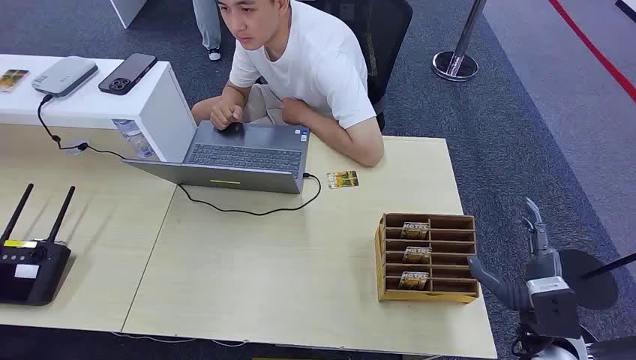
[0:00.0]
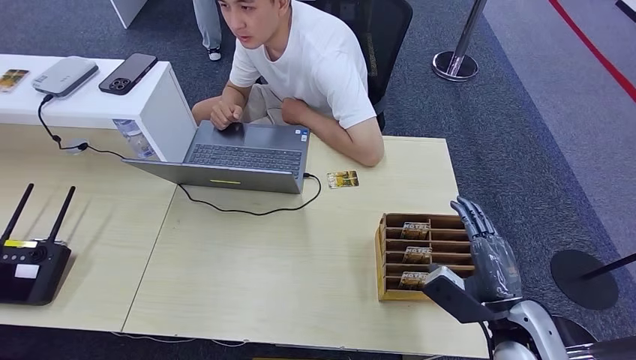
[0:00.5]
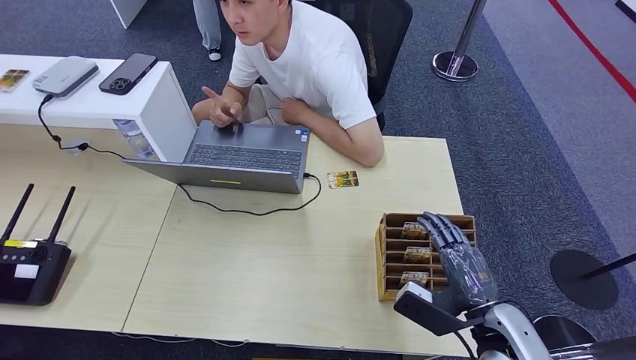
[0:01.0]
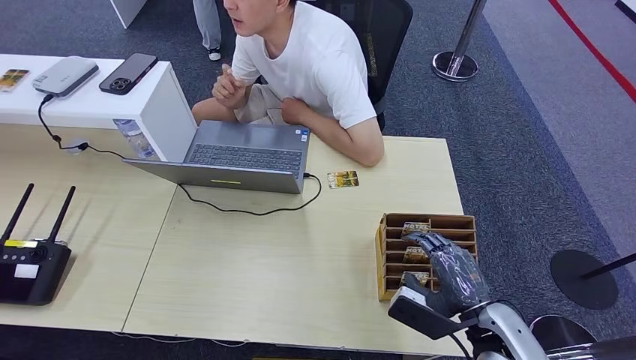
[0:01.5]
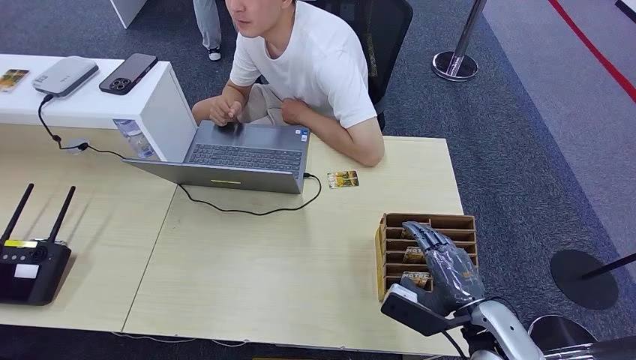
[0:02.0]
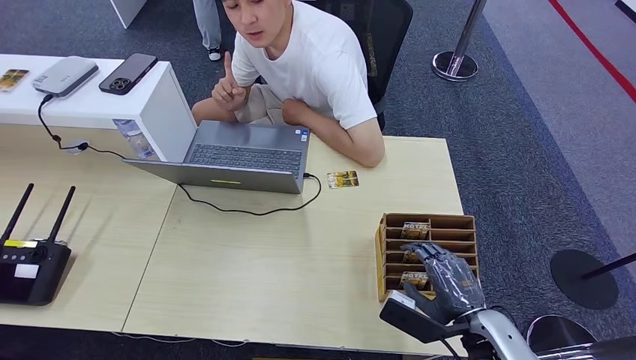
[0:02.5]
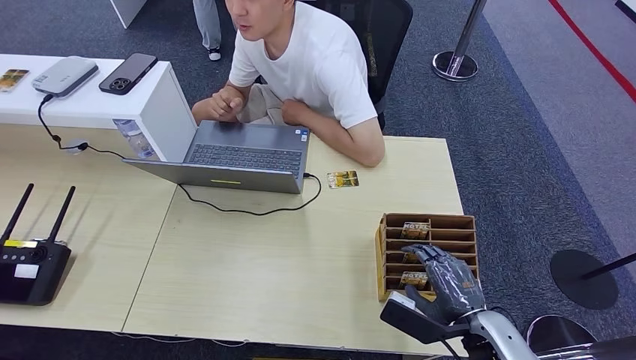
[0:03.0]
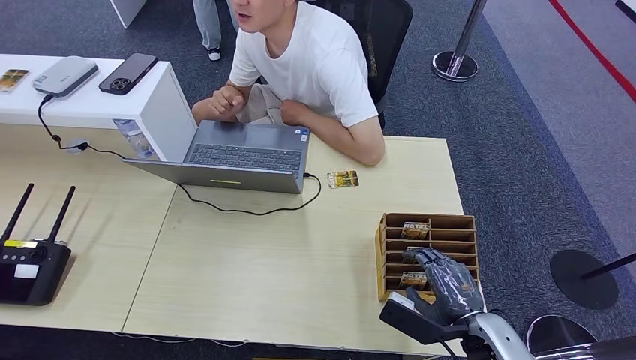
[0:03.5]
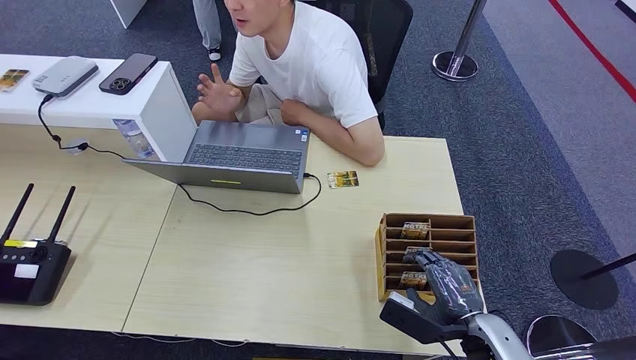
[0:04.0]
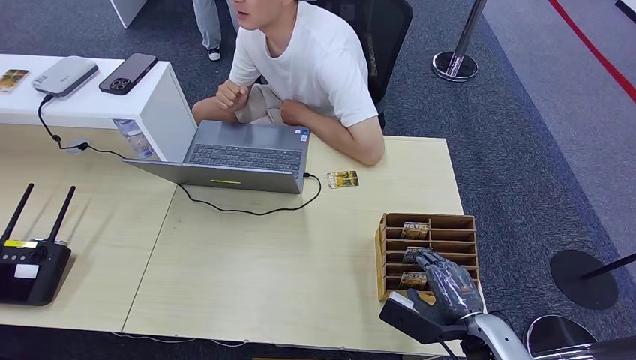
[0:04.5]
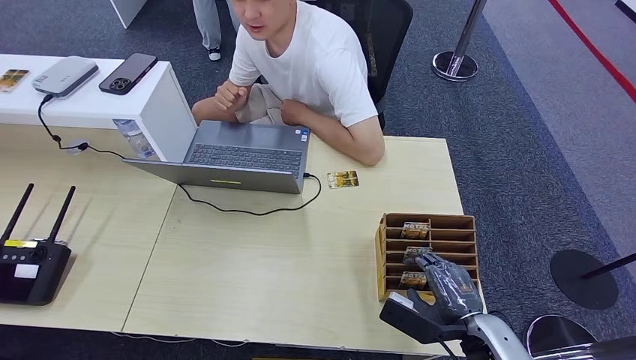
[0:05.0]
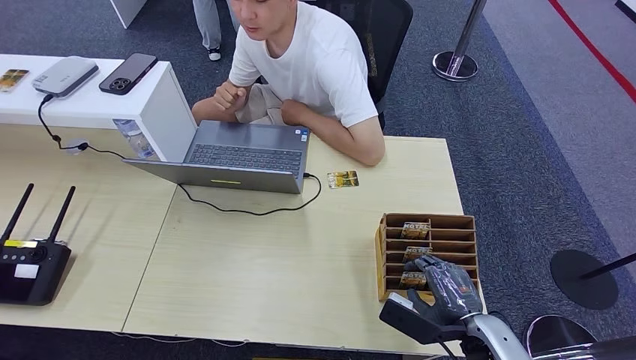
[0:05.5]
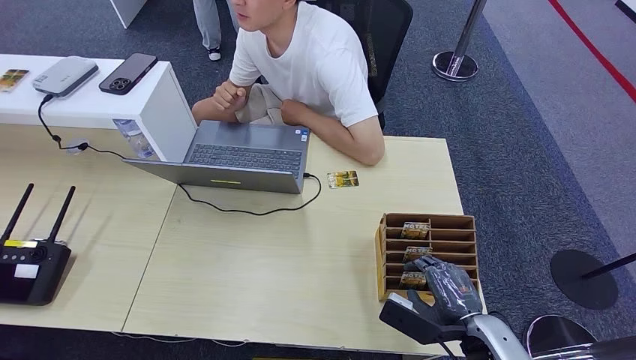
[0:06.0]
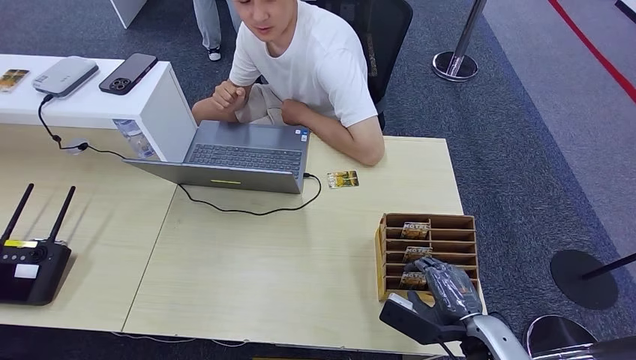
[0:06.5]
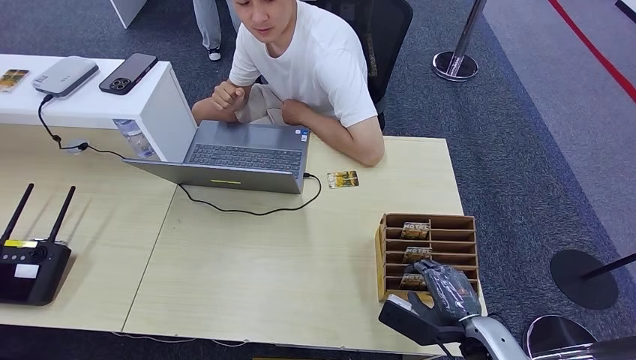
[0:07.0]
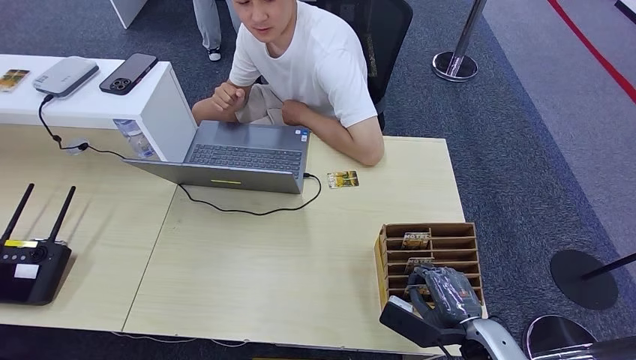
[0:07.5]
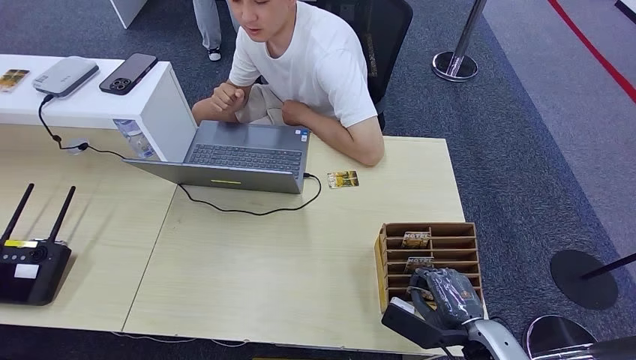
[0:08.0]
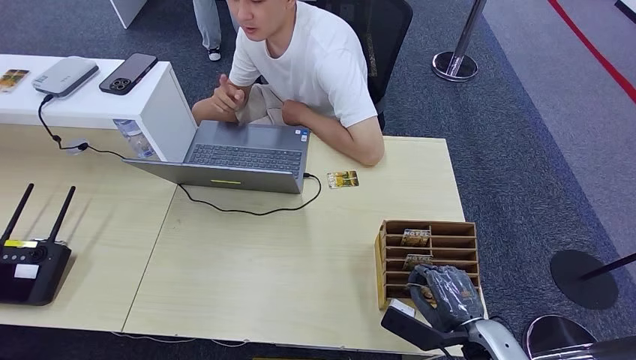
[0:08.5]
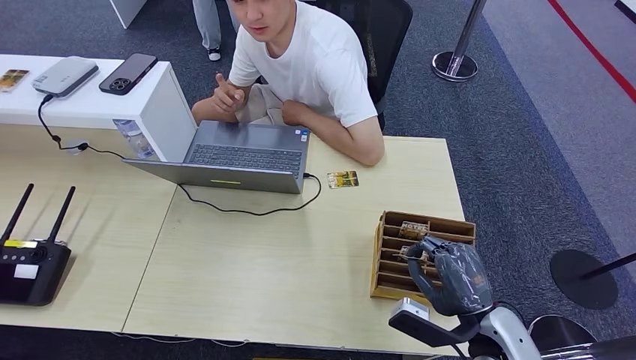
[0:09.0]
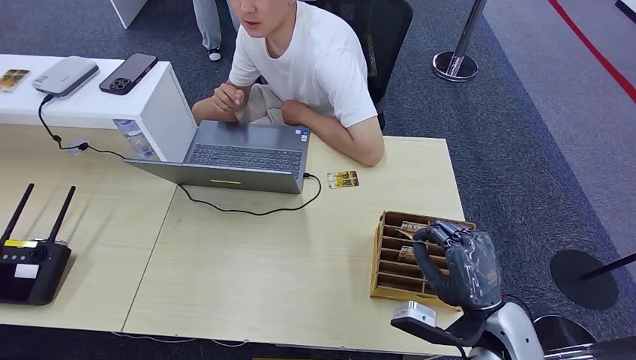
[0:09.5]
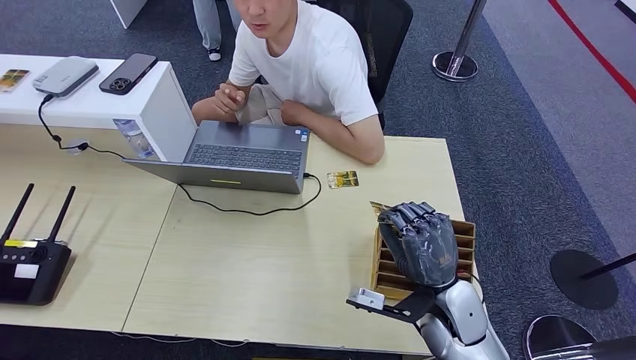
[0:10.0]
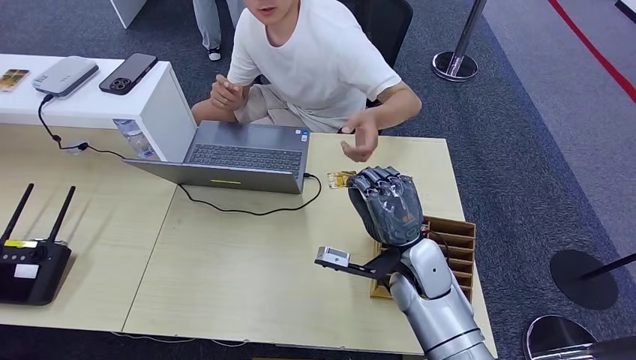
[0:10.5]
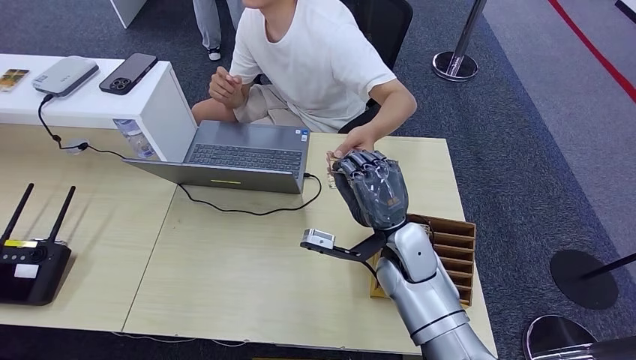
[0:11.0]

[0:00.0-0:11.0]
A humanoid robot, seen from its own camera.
Step, 0:00.0 to 0:07.0: Pick up the room card from the card holder.
Step, 0:07.5 to 0:11.0: Hand the room card to the target.
0:02.0 to 0:03.5: The hands move only a little.
0:03.5 to 0:05.5: Both hands stay put.
0:05.5 to 0:07.5: Neither hand changes place.
0:09.0 to 0:11.0: The right hand is displaced forward and to the left by some 20 cm.
